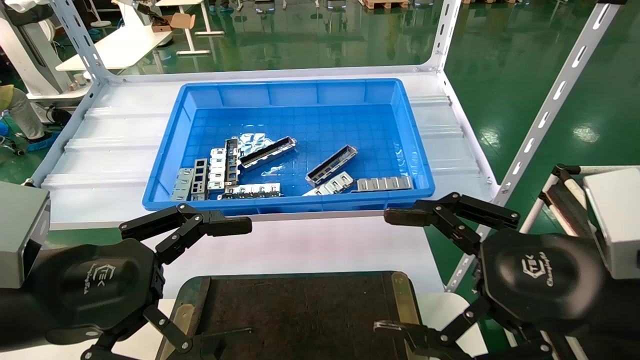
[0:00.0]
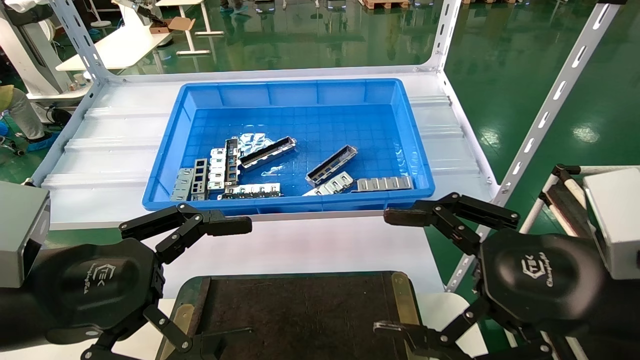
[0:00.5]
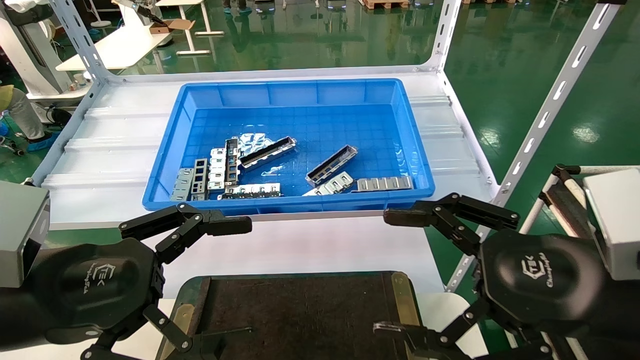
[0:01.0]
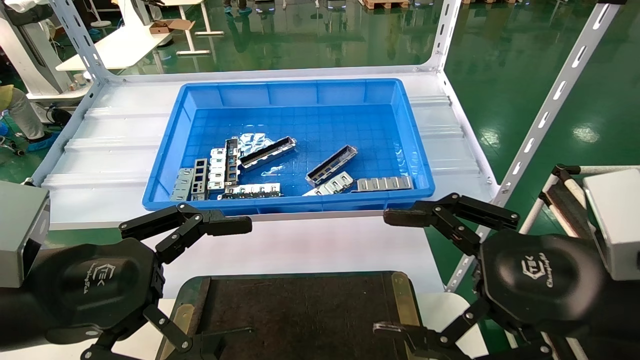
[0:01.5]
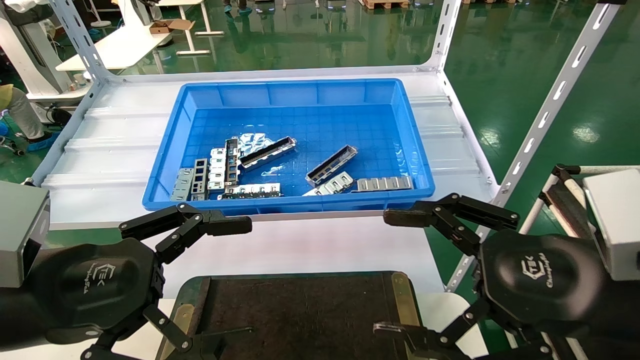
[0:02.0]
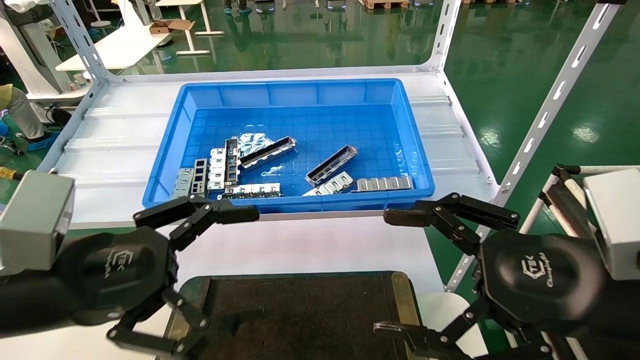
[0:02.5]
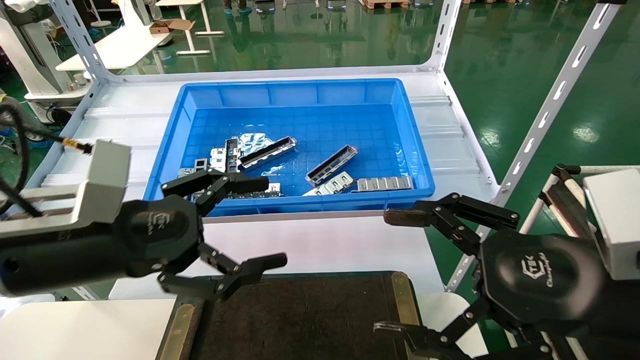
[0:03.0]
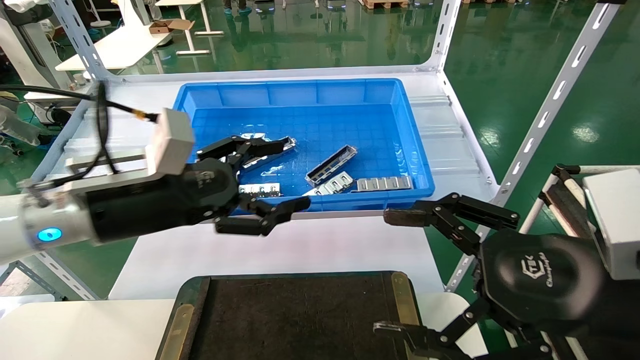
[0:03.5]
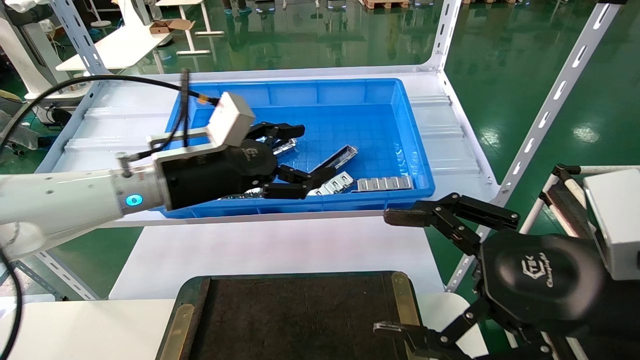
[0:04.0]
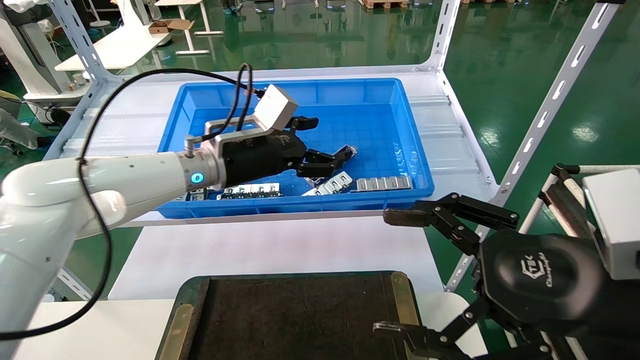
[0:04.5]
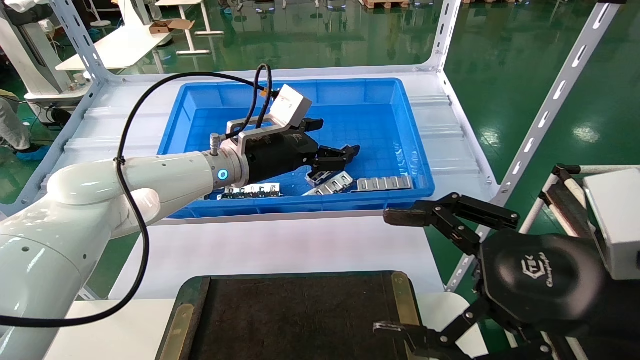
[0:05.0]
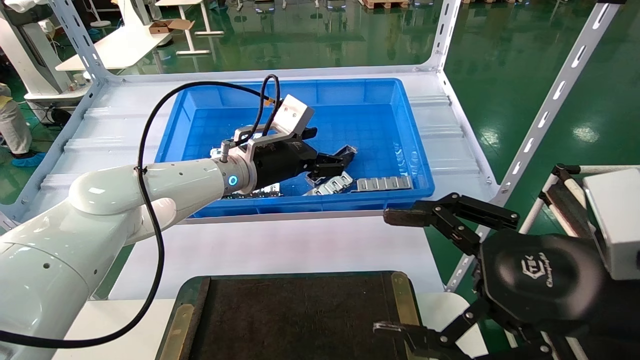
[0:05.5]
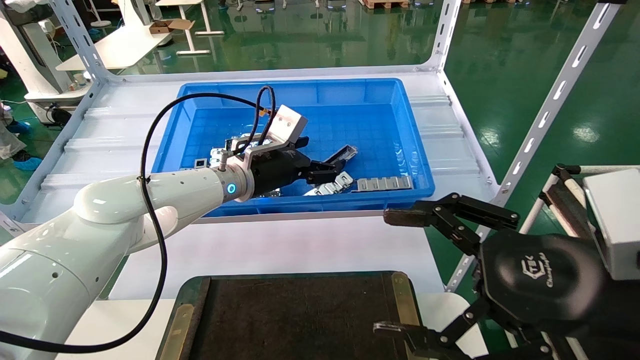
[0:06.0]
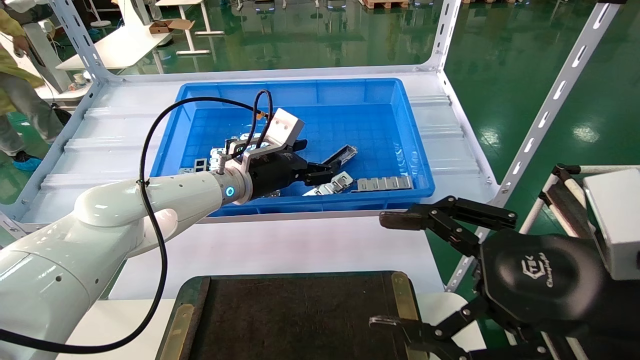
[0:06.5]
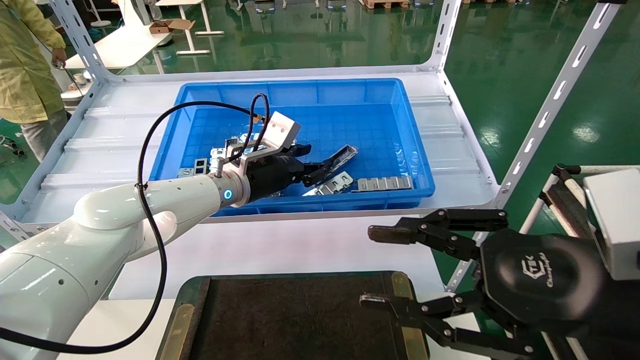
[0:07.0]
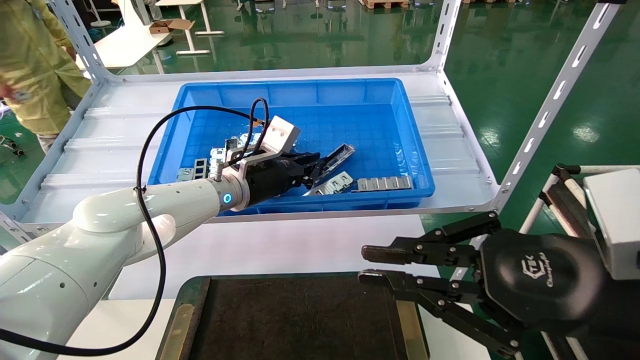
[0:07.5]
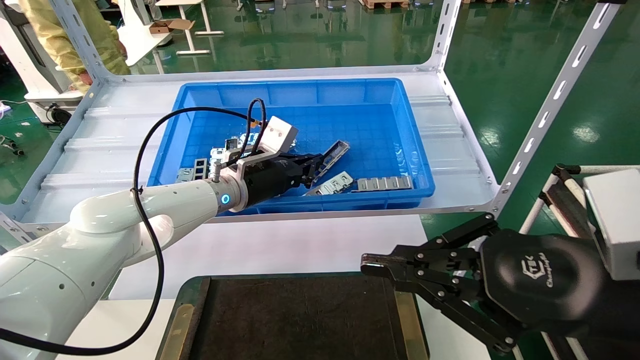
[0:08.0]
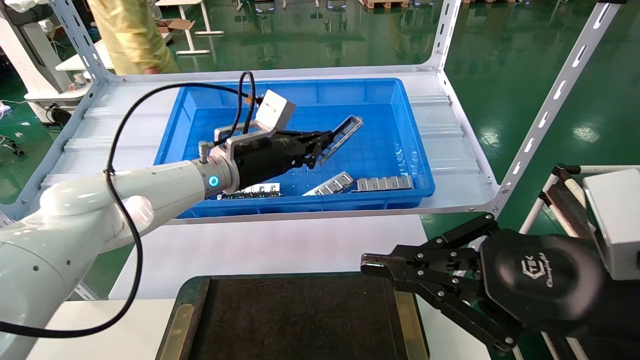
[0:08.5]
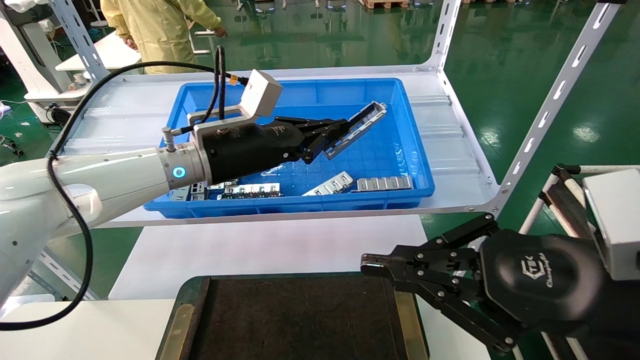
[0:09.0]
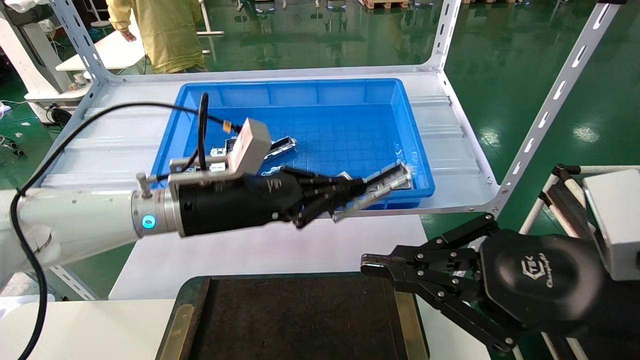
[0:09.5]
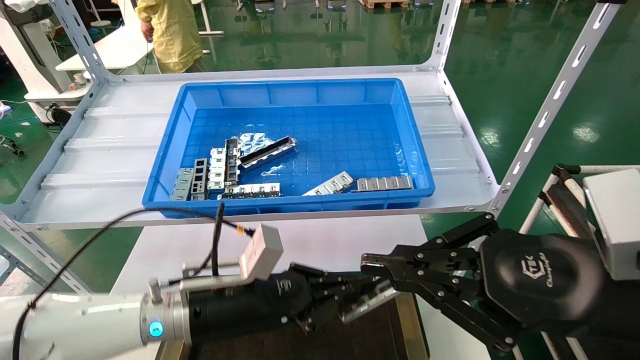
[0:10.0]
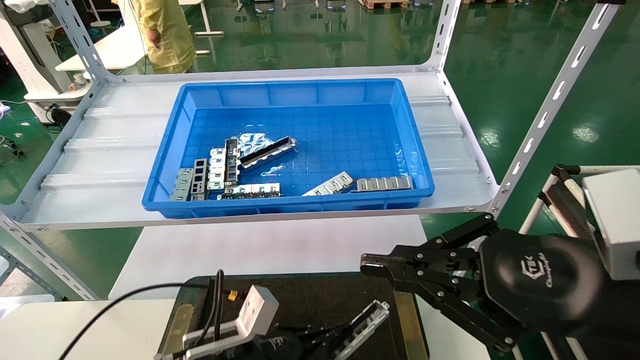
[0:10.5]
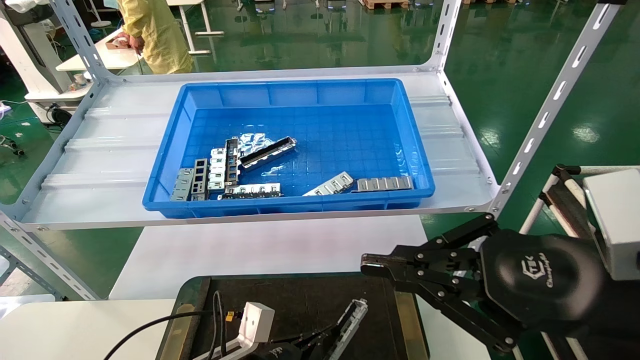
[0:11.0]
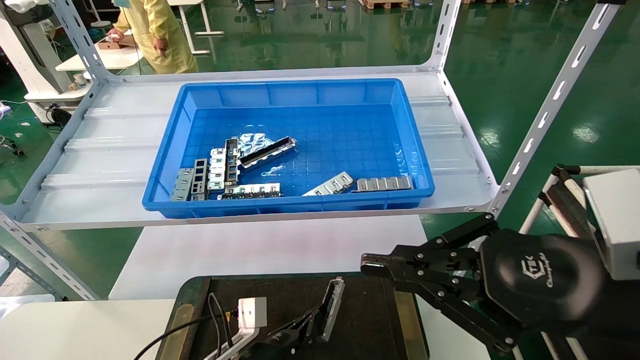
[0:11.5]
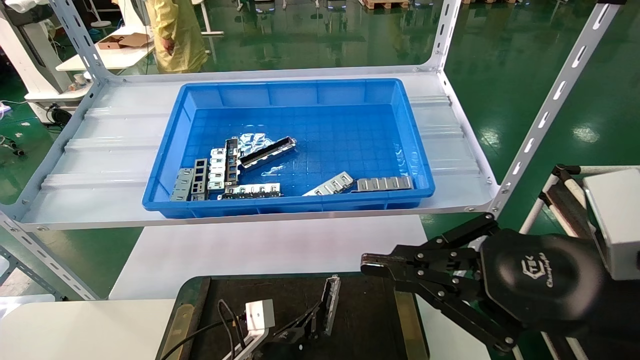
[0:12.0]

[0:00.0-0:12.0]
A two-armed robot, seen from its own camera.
Task of the whole recording: Grasp the part with one hand and place it on the black container.
Step, 0:02.5 to 0:07.5: Pick up the front USB bracket from the feeding area.
0:00.0 to 0:02.0: Both grippers stay put.
0:02.0 to 0:04.0: The left gripper heads forward and to the right, covering approximately 20 cm.
0:04.0 to 0:06.0: The left gripper is displaced forward and to the right by roughly 10 cm.
0:06.0 to 0:08.0: The right gripper closes up; the left gripper closes up.
0:08.0 to 0:10.0: The left gripper heads backward and downward, covering roughly 20 cm.
0:10.0 to 0:12.0: The left gripper moves downward, about 20 cm.

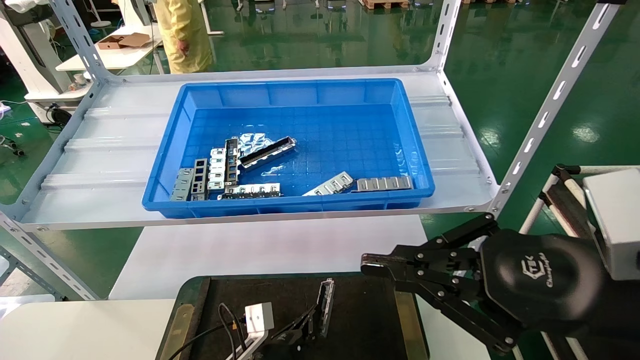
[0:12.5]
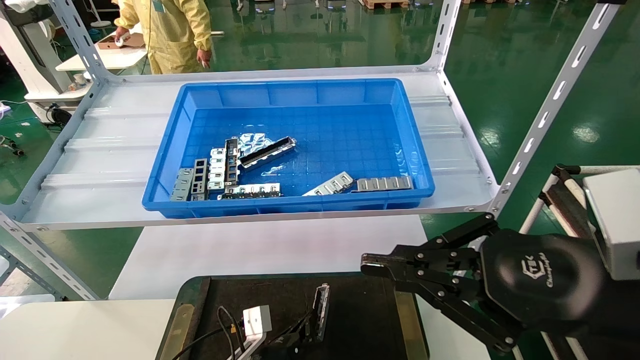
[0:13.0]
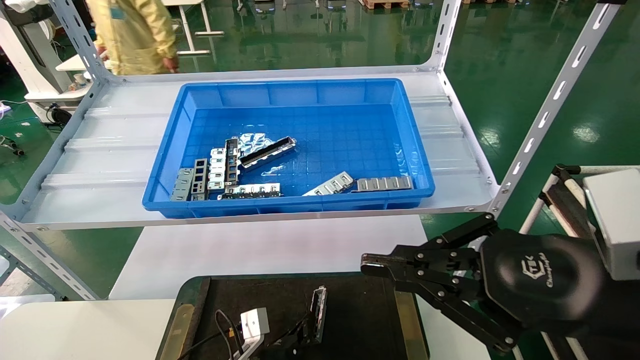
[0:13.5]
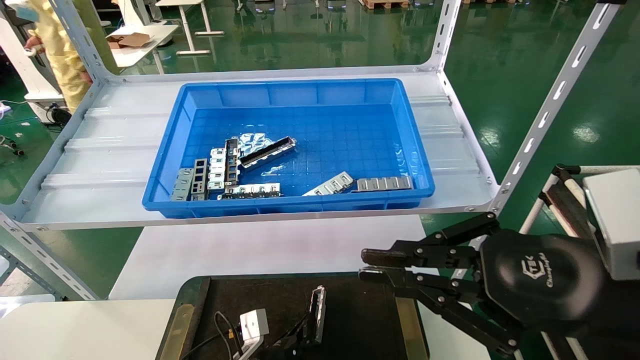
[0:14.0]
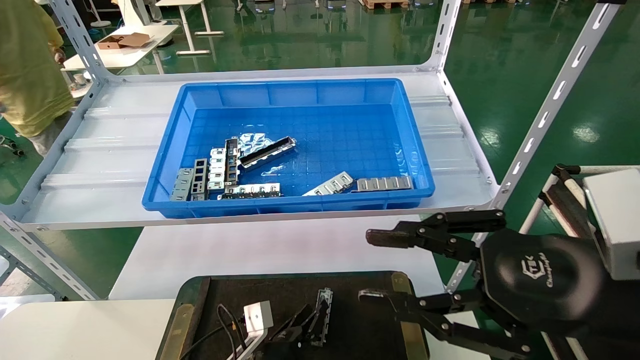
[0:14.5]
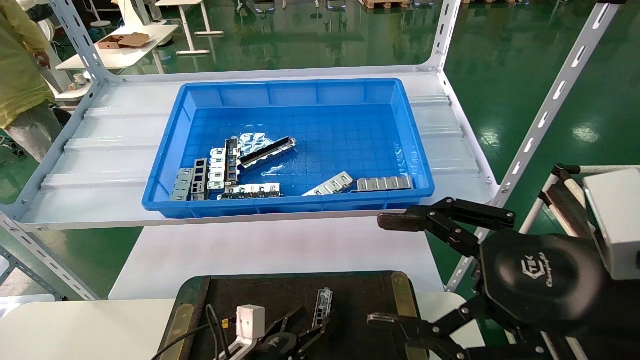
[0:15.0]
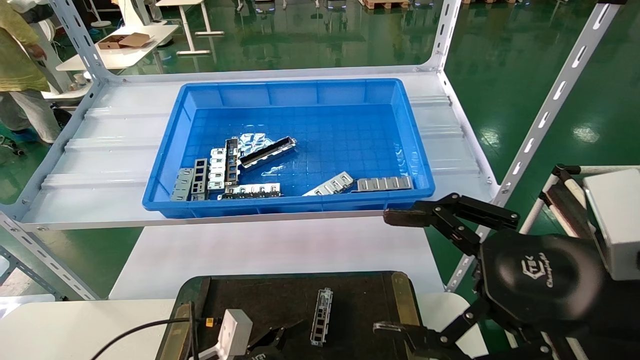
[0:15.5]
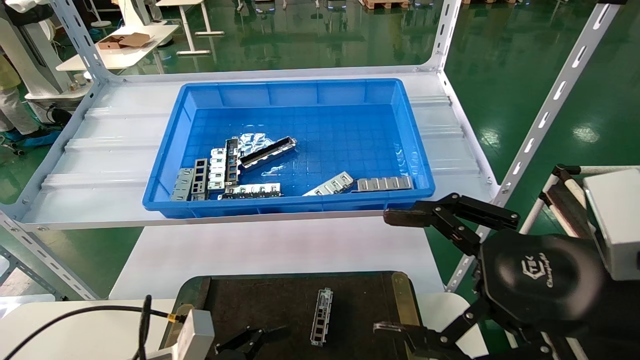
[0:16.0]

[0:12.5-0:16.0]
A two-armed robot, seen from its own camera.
Task of the whole recording: Grasp the part with one hand and place it on the black container.
0:12.5 to 0:14.5: The grippers move only a little.
0:14.5 to 0:16.0: The right gripper opens. Meanwhile the left gripper heads upward, to the left and backward, covering some 20 cm, and opens.
